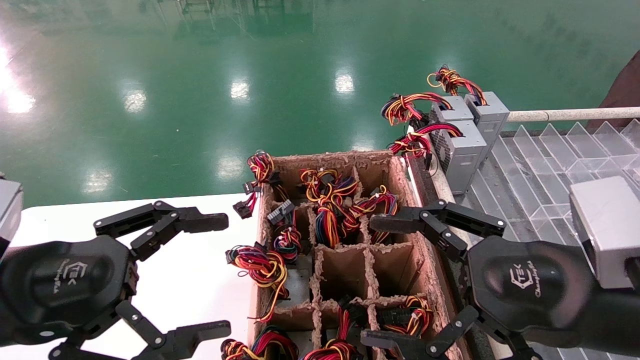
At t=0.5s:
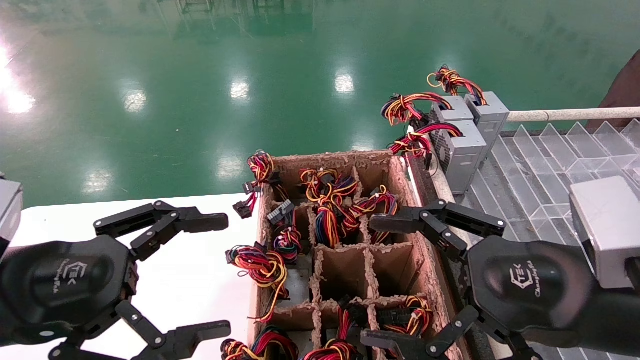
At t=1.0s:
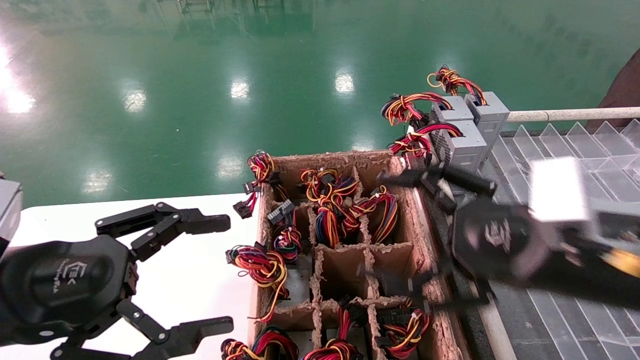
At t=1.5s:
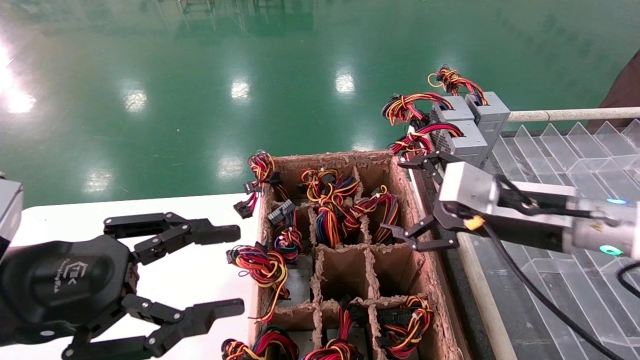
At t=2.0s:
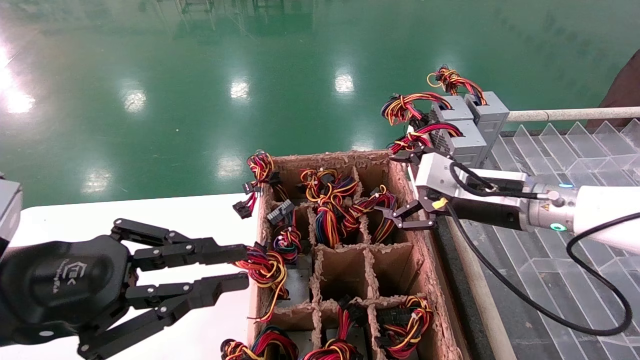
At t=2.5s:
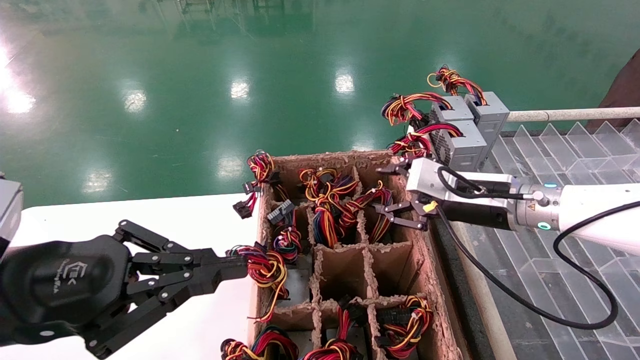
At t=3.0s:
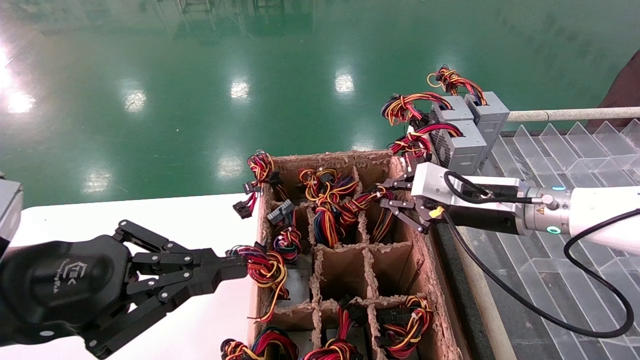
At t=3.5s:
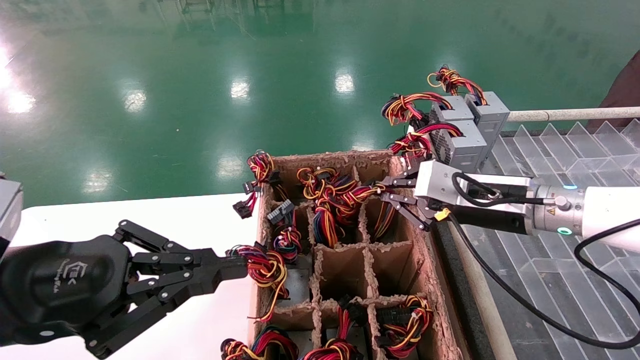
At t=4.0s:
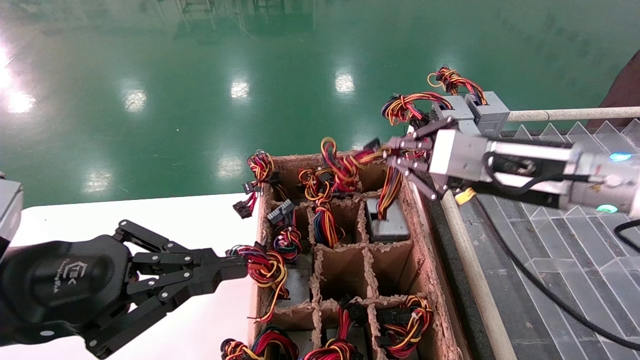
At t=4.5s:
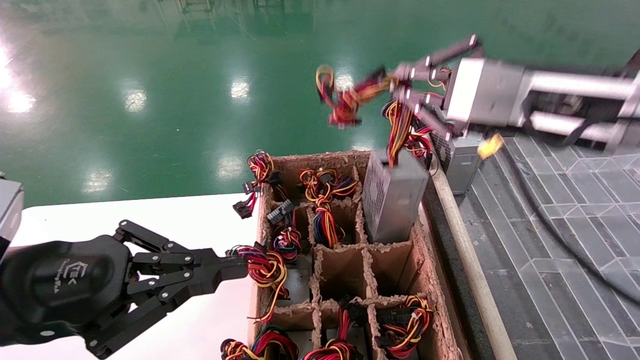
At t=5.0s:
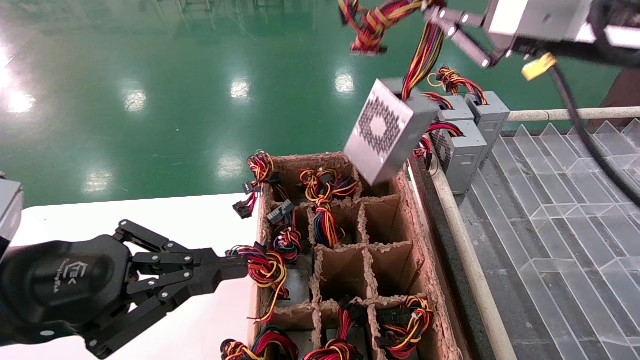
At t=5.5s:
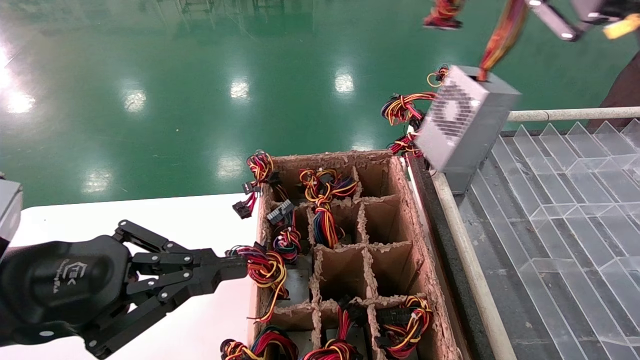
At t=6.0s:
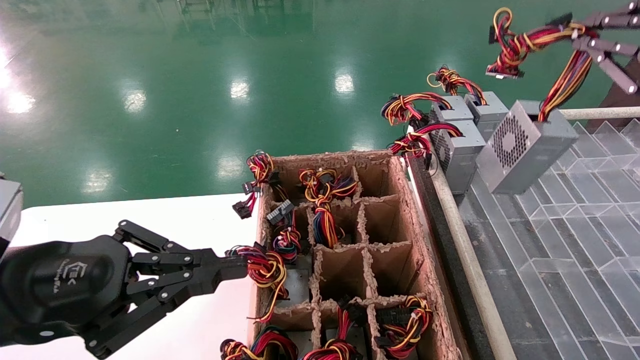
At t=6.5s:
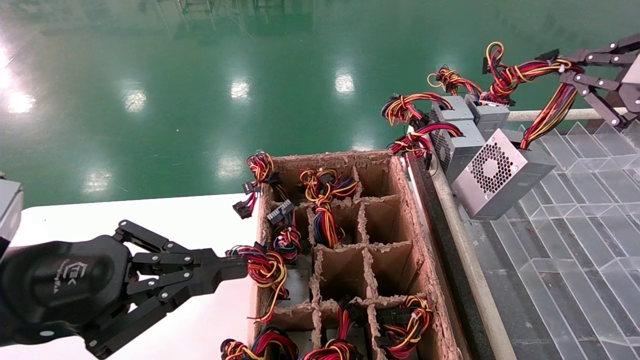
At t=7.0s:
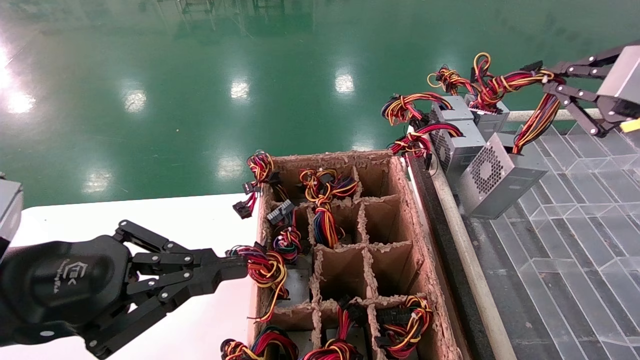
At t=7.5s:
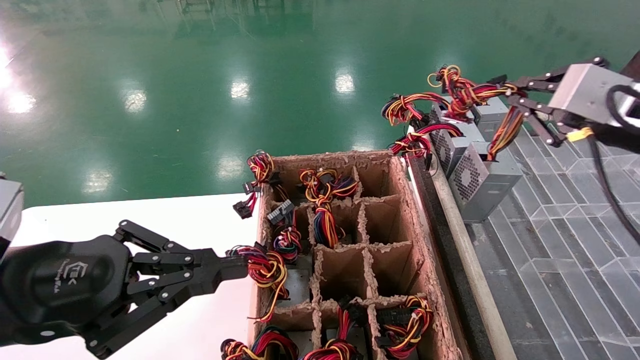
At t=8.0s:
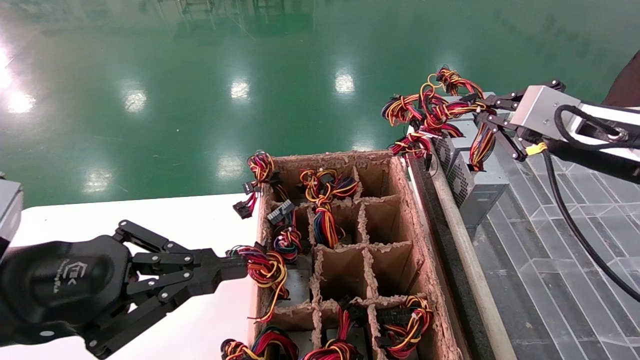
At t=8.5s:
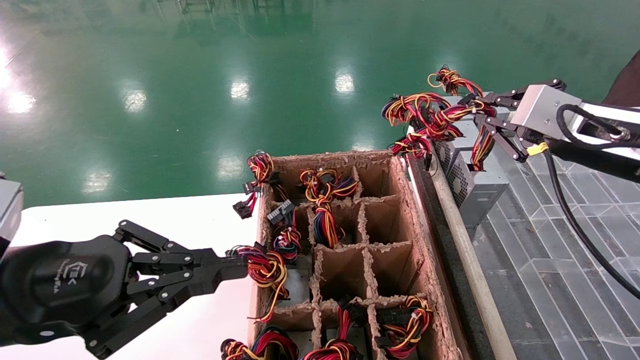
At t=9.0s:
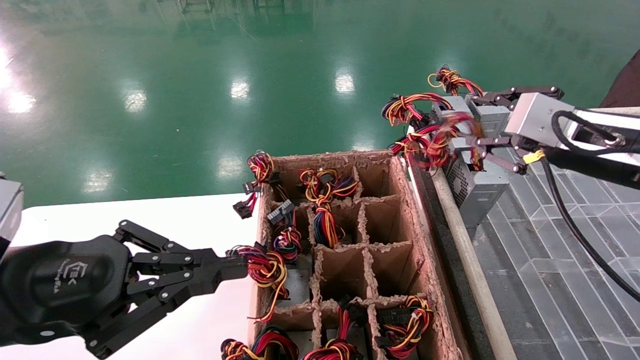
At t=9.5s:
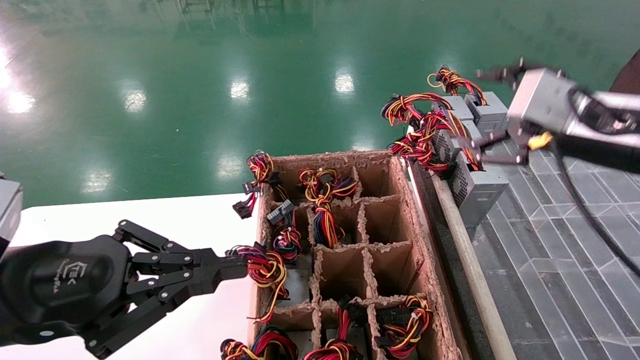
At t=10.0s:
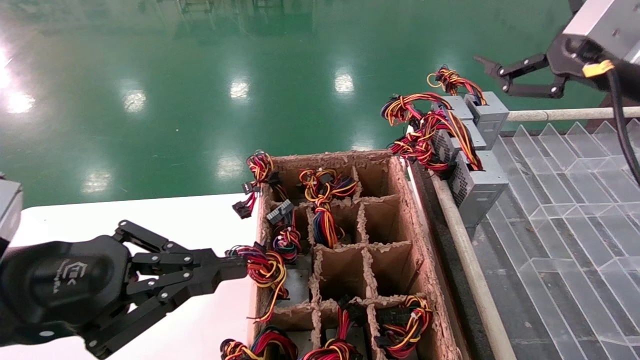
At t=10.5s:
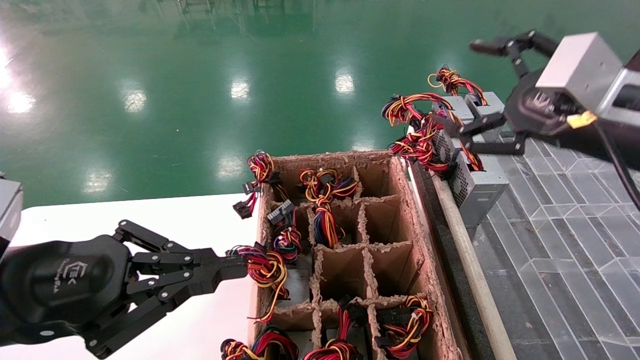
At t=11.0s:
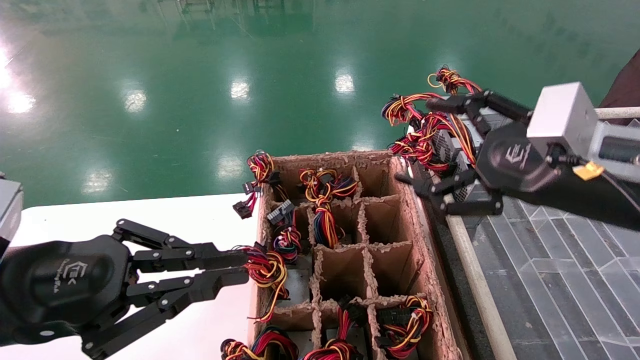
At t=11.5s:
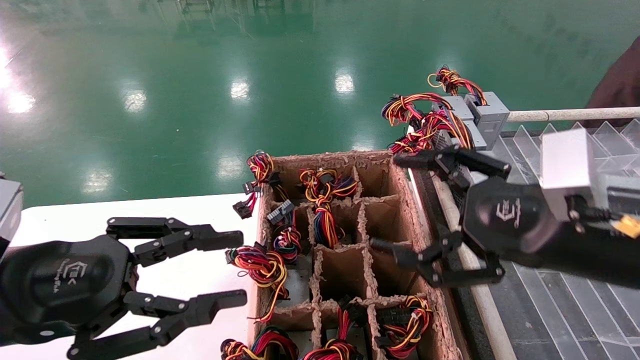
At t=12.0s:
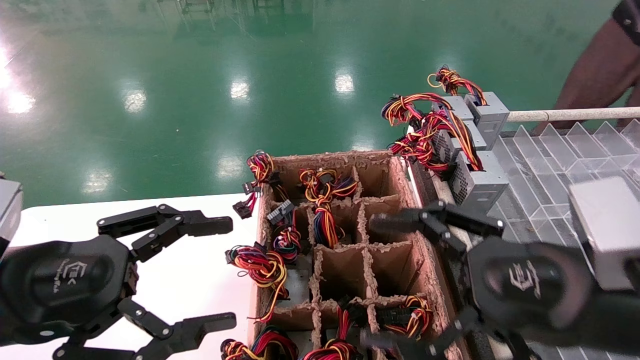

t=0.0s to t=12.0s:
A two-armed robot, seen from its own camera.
Step, t=1.5s to t=3.0s: Grab the main unit power supply from the containment box.
Step, t=3.5s to t=9.0s: Place the main unit power supply in the designated area.
t=0.0s to t=2.0s: The left gripper closes; the right gripper is displaced forward by some 20 cm.
t=2.0s to t=4.0s: The right gripper moves upward and backward, approximately 10 cm, and closes up.
t=4.0s to t=6.0s: The right gripper moves to the right, upward and backward, about 20 cm.
t=6.0s to t=8.0s: The right gripper is displaced downward and forward by about 10 cm.
t=8.0s to t=10.0s: The right gripper heads upward, covering about 5 cm, and opens up.
t=10.0s to t=12.0s: The right gripper travels downward, backward and to the left by some 20 cm; the left gripper opens up.

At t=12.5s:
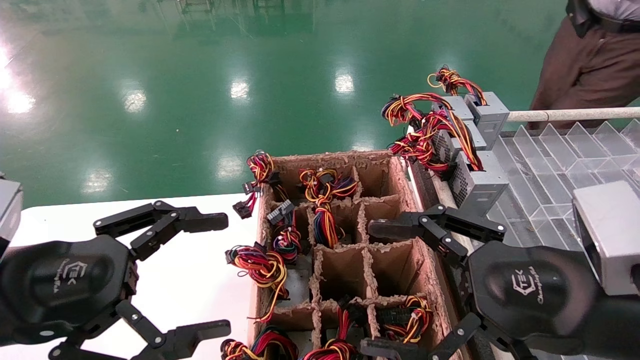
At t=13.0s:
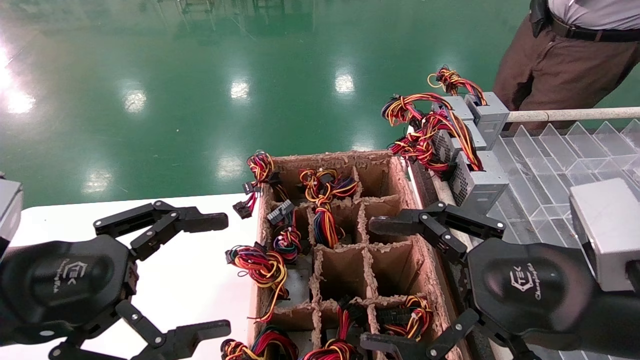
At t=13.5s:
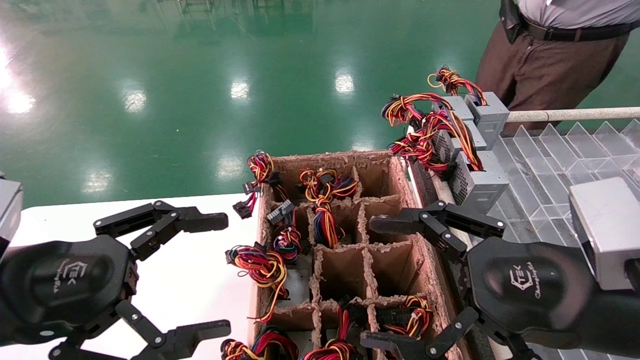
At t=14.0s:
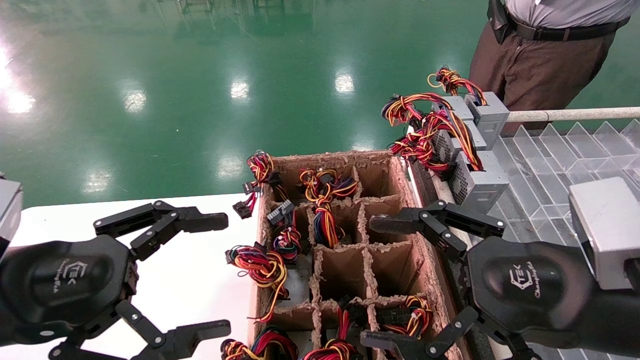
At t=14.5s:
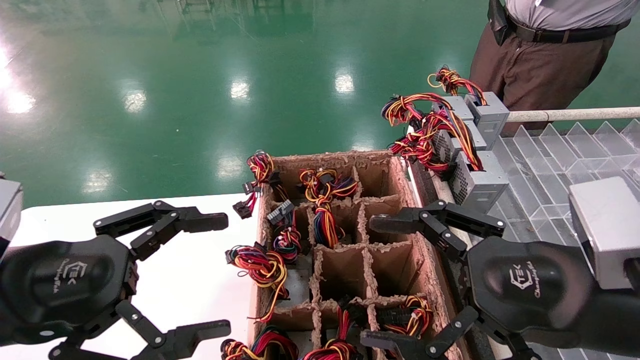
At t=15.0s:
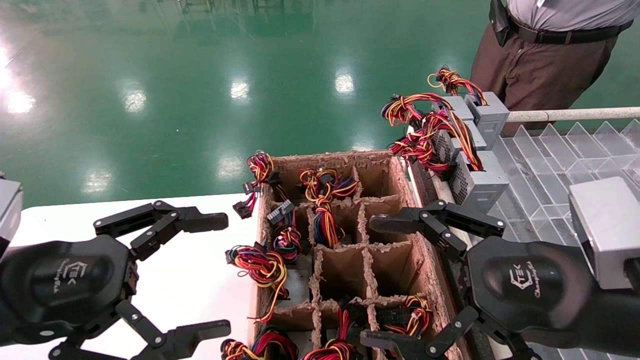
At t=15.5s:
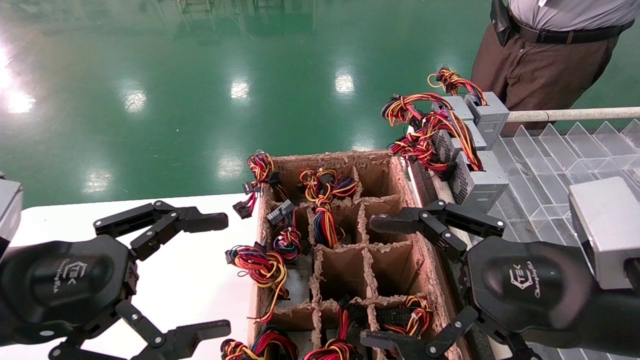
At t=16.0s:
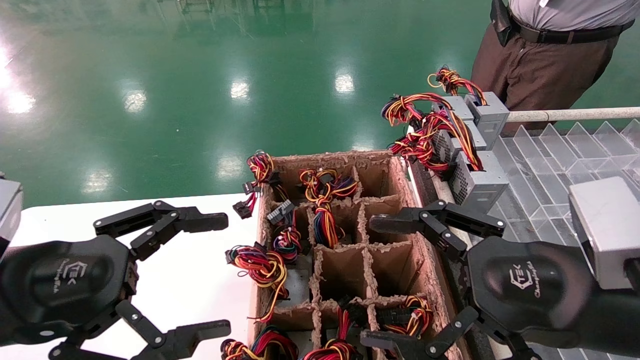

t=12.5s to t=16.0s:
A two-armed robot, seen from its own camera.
t=12.5s to t=16.0s: Both grippers stay about where they are.

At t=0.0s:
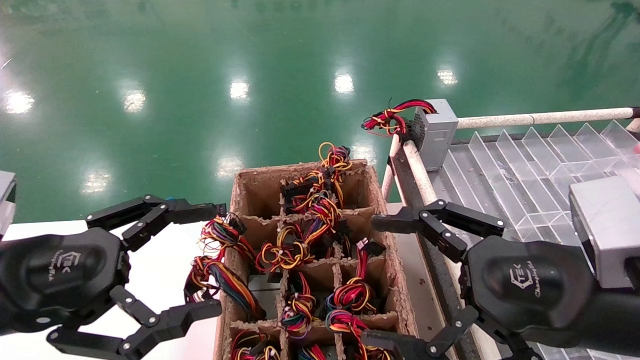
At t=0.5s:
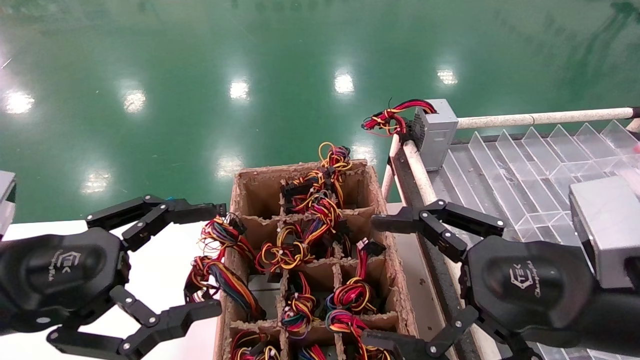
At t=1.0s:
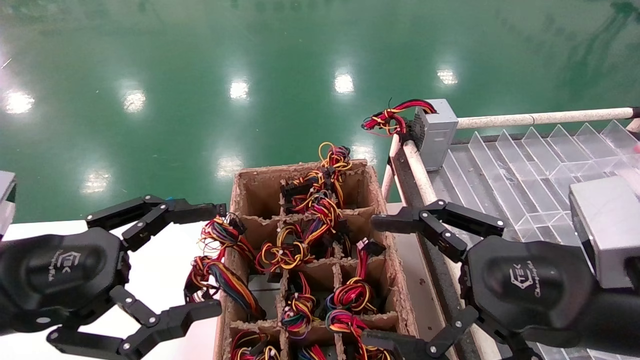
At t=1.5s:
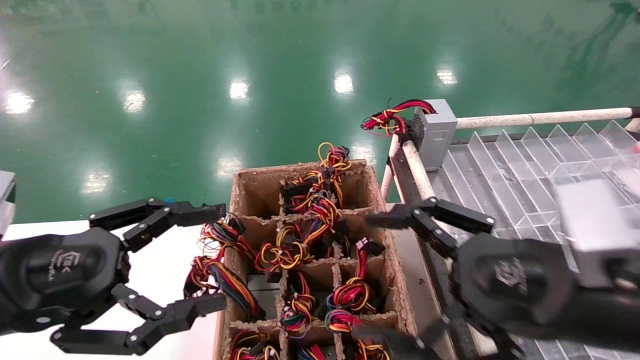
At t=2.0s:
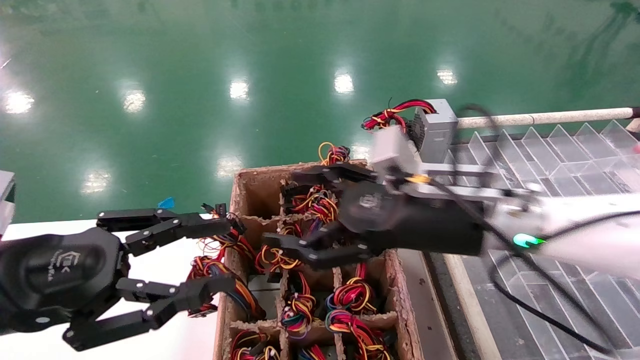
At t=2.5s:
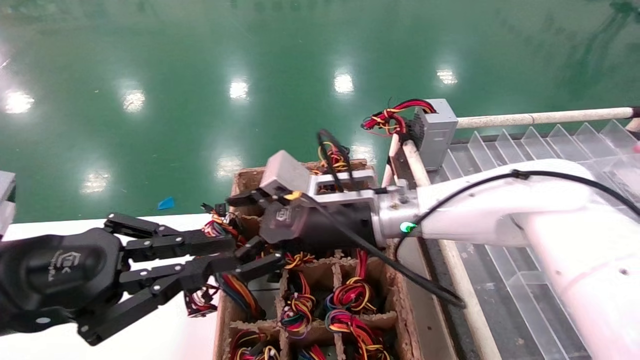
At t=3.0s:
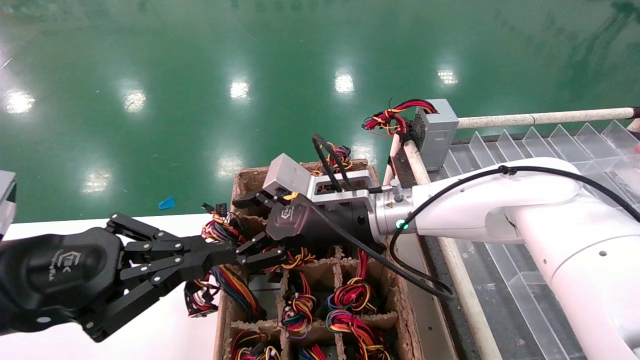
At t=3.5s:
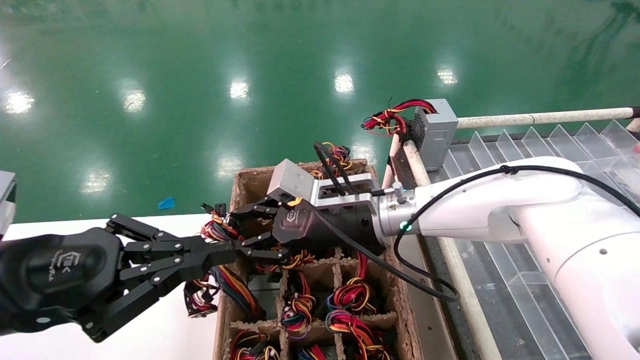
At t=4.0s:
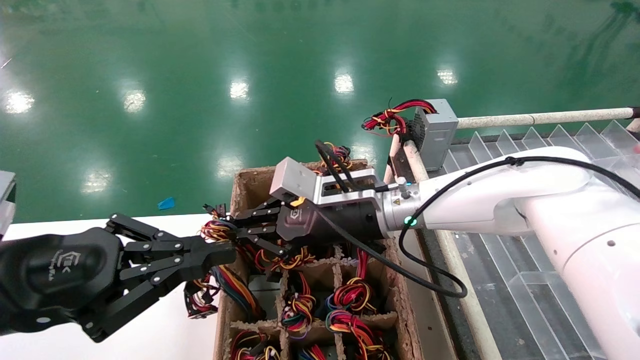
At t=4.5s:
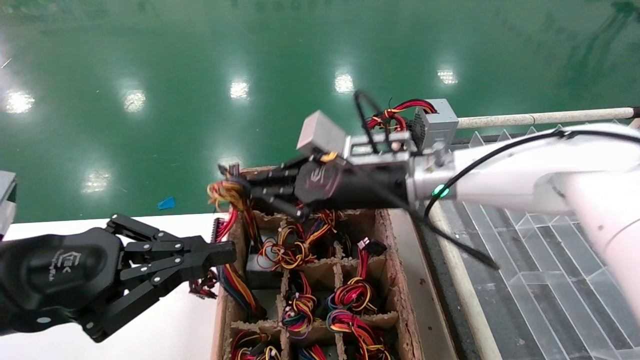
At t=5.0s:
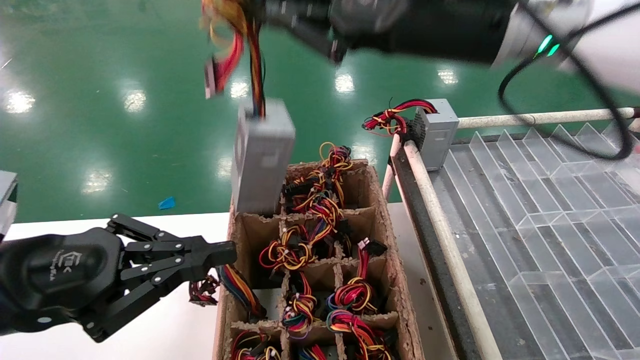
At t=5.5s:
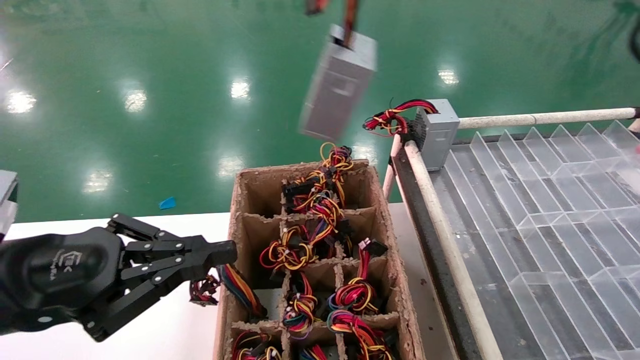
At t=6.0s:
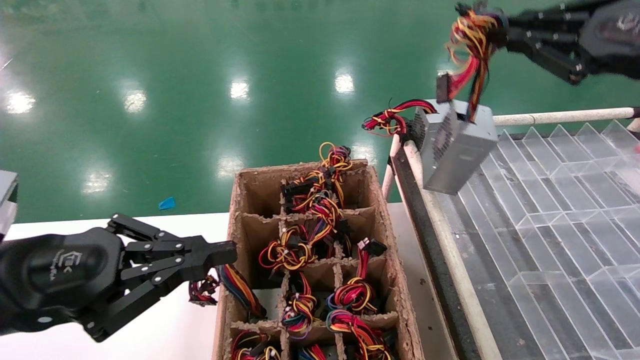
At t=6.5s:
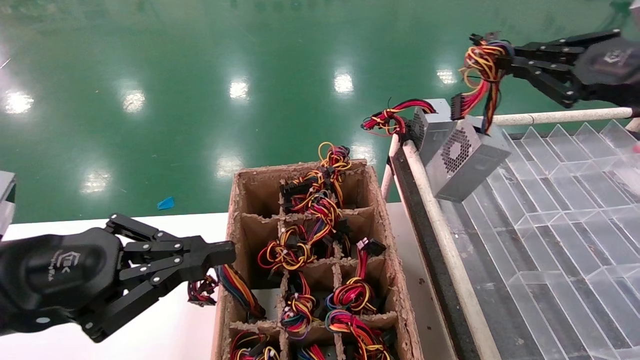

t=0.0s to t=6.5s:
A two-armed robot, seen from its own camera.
Step, t=2.0s to t=4.0s: Grab the main unit power supply from the containment box.
t=0.0s to t=2.0s: The left gripper closes its fingers, while the right gripper is displaced forward and to the left by approximately 15 cm.
t=2.0s to t=4.5s: The right gripper shifts about 10 cm forward, upward and to the left, and closes up, while the left gripper closes up.
t=4.5s to t=6.5s: The right gripper shifts some 30 cm to the right.
